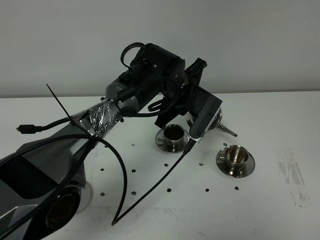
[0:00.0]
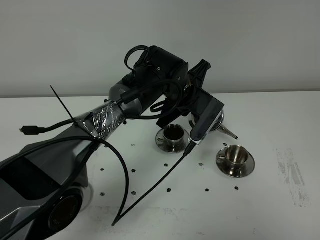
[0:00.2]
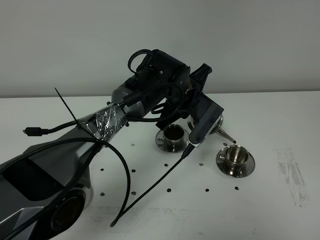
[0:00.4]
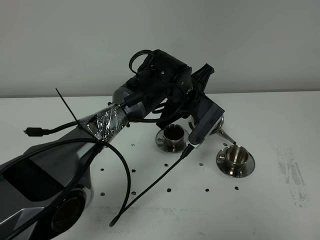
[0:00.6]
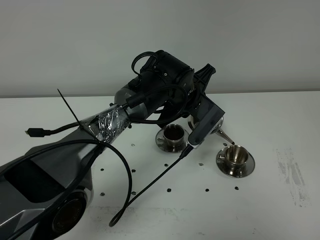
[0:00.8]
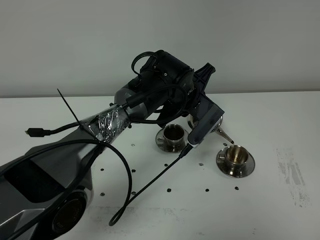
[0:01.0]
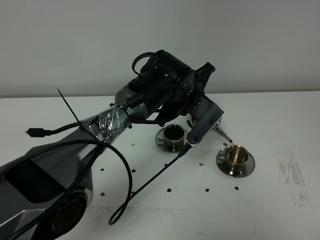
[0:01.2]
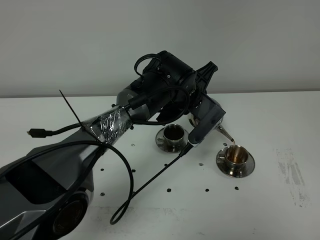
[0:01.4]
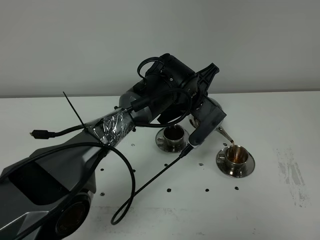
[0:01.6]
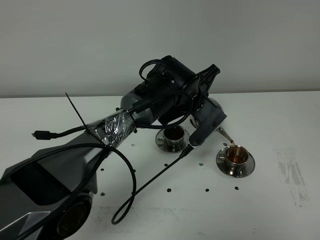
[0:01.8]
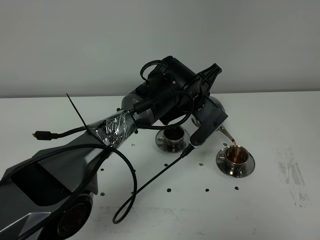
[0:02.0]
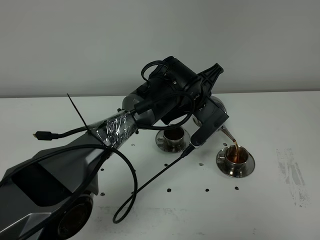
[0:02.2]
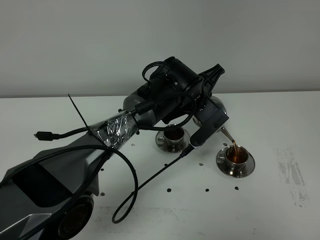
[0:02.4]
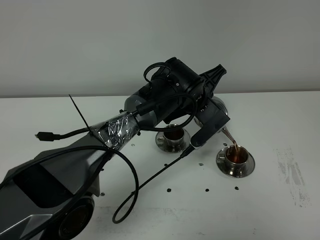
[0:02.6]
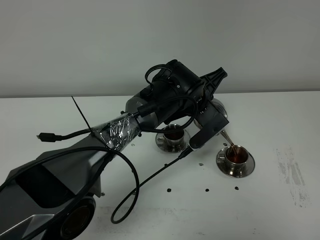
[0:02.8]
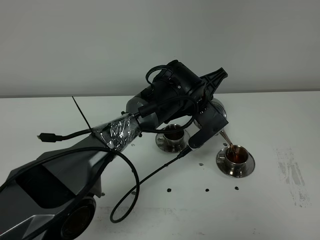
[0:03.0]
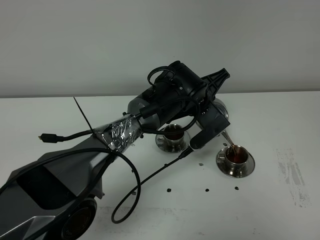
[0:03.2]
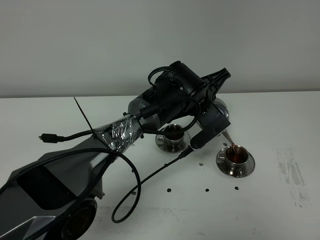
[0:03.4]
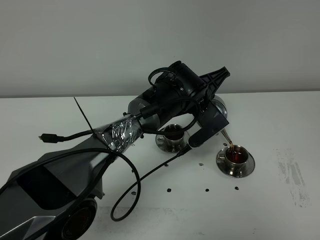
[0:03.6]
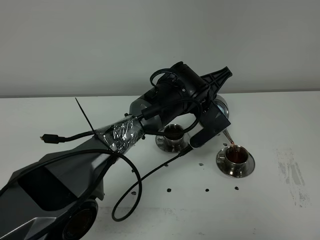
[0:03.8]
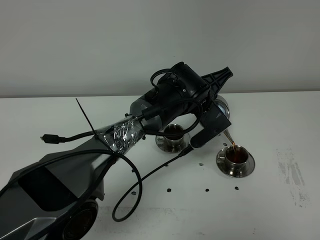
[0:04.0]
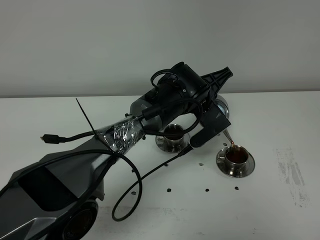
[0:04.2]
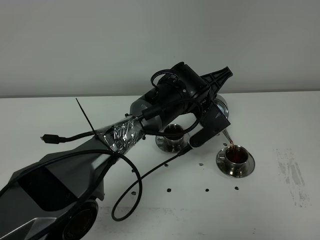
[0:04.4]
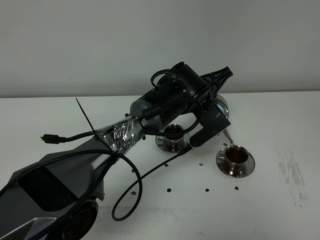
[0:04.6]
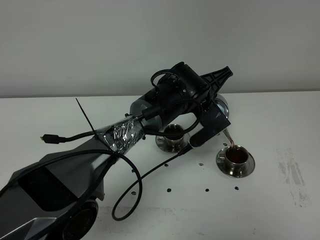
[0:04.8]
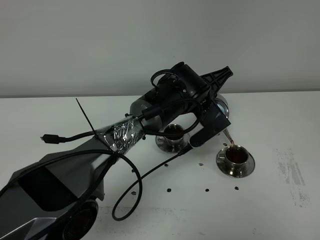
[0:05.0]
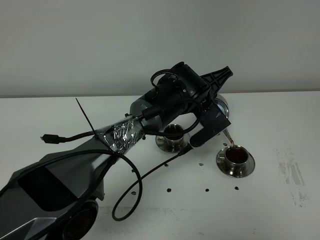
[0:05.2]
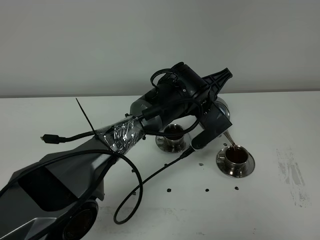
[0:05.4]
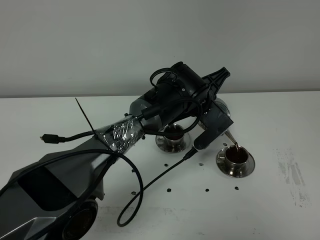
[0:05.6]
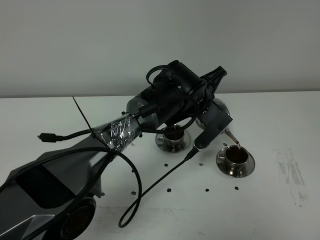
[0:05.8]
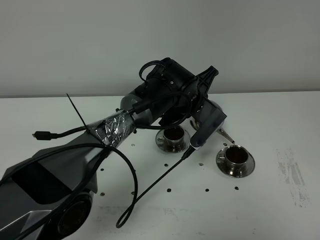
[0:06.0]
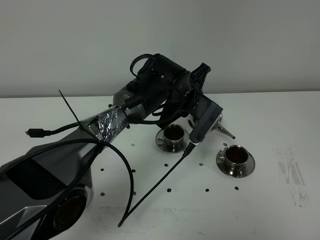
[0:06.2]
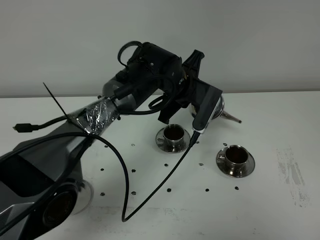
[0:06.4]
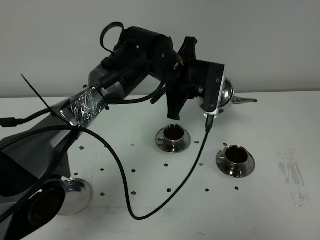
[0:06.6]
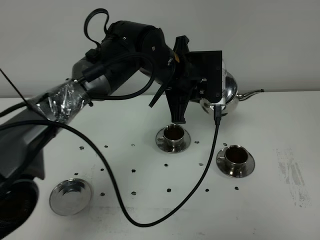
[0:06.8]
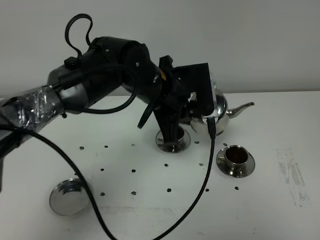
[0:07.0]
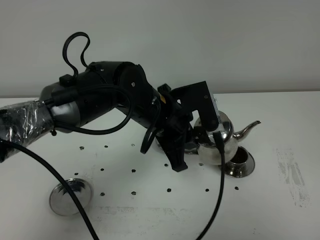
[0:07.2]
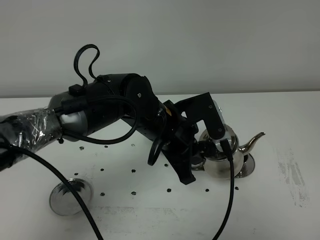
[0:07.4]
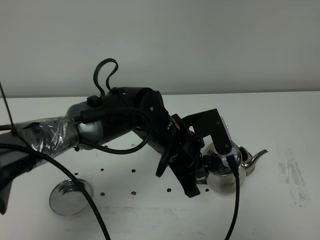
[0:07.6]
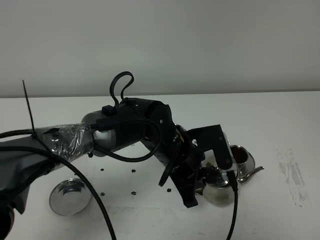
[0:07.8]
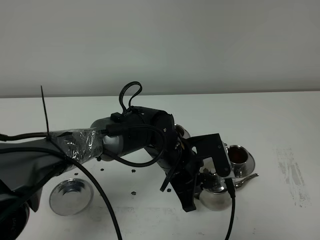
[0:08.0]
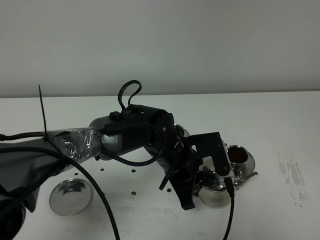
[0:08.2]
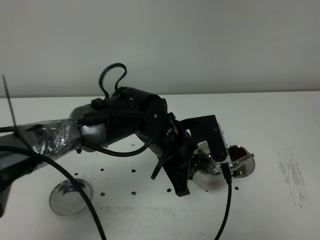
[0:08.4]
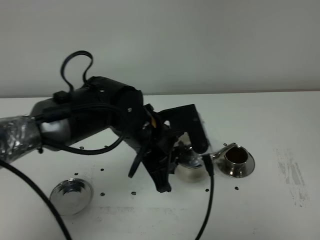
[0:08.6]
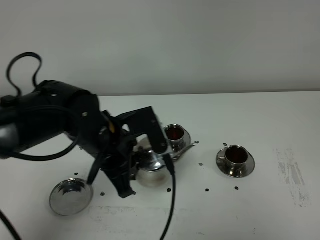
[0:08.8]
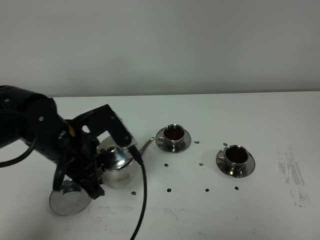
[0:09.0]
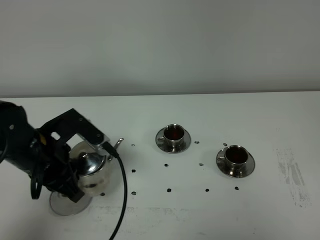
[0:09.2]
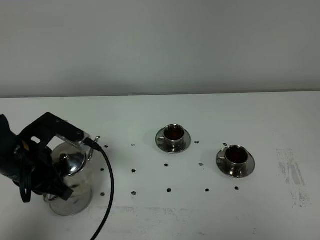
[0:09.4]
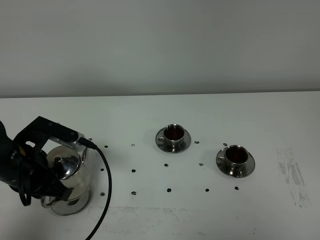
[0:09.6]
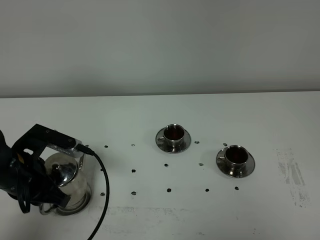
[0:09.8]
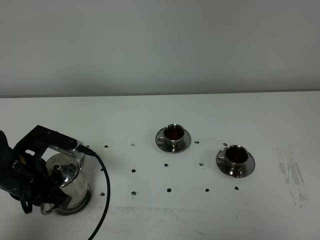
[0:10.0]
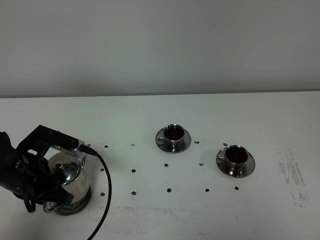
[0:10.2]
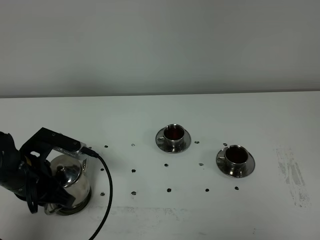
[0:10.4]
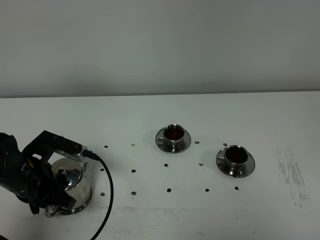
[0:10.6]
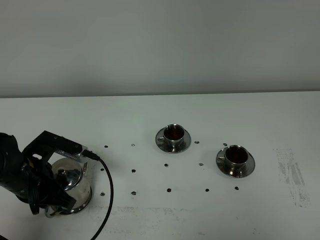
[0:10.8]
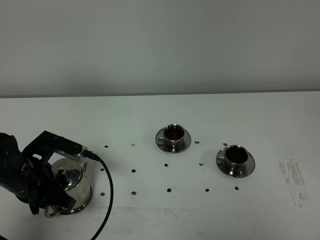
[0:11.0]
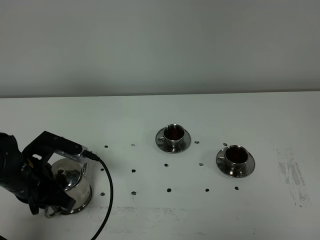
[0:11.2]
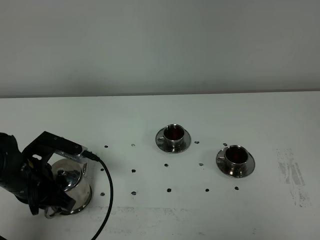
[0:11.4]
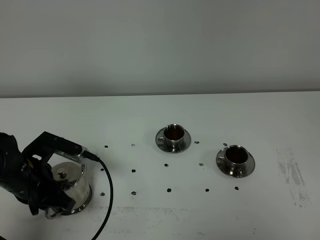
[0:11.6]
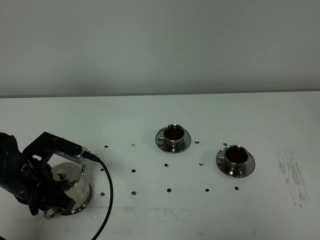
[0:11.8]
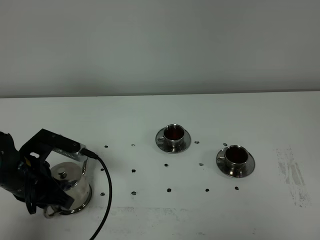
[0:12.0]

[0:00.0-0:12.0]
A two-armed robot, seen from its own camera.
Task of the whole recording: grasp the stainless steel teapot and pour the tea into the two stainless steel teacups one by one, put the stainless steel teapot back in its original place.
Step, 0:00.0 to 0:06.0: Pour tea into the teacup with the left gripper.
0:00.0 to 0:01.6: The grippers make only small movements.
0:01.6 to 0:03.0: There are only small adjustments of the grippers.
0:03.0 to 0:04.4: Both grippers stay about where they are.
0:04.4 to 0:06.0: The grippers stay close to where they were, moving slightly.
0:06.0 to 0:07.6: The left gripper moves backward, about 10 cm.
0:07.6 to 0:09.0: The left gripper travels to the left by roughly 15 cm.
0:09.0 to 0:10.4: The left gripper moves to the left and downward, approximately 10 cm.
0:10.4 to 0:12.0: Neither gripper changes place.

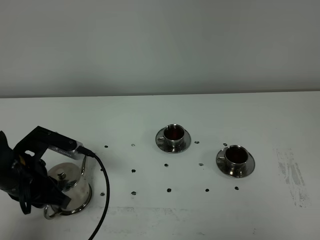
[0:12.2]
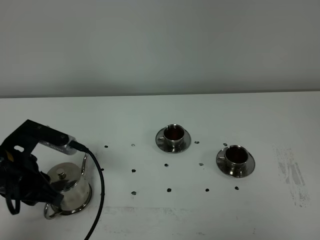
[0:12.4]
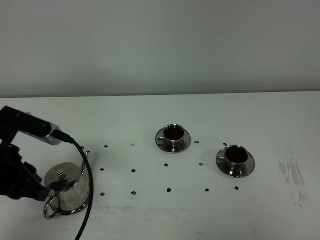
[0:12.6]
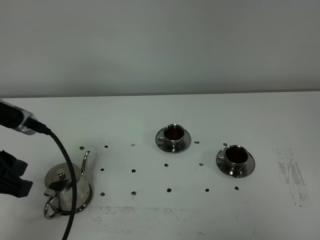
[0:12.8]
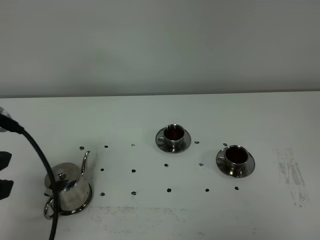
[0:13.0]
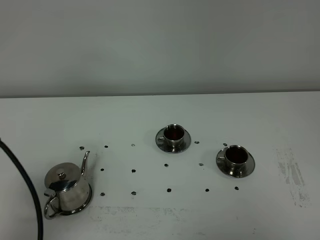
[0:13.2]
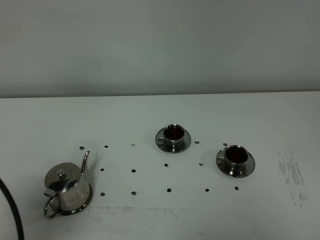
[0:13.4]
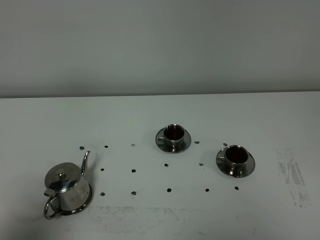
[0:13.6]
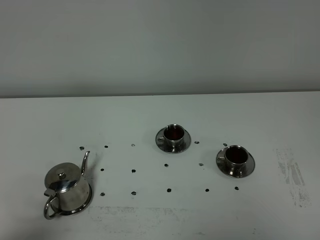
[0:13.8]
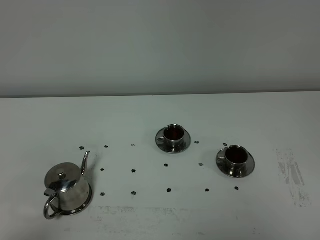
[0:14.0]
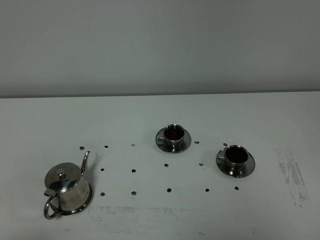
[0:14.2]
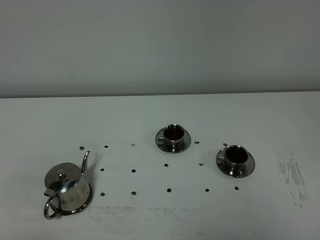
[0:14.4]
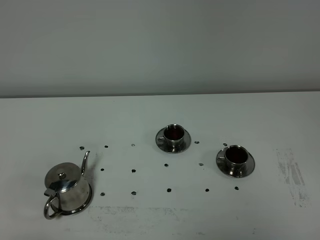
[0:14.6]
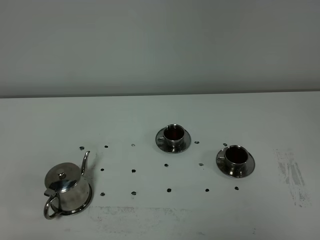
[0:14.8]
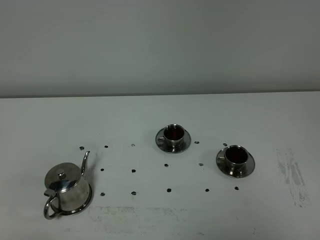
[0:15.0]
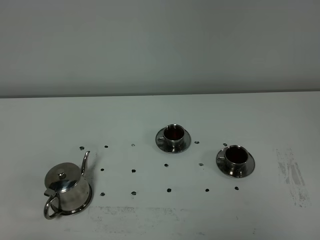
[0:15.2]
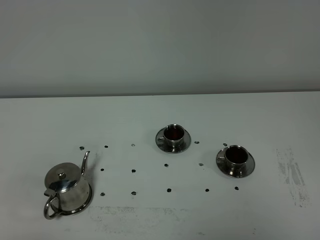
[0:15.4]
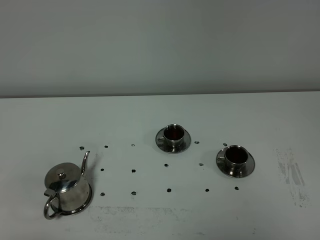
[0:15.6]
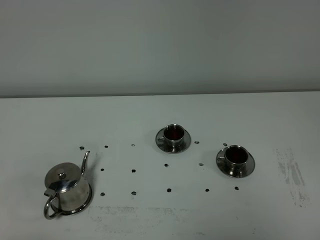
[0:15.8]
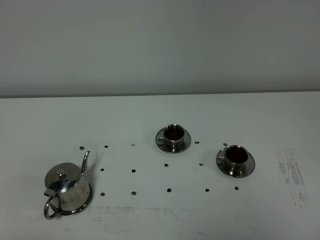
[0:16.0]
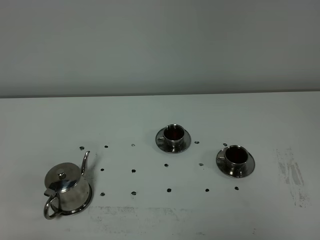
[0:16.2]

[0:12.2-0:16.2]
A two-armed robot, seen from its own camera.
Task of the whole recording: grasp the stainless steel teapot and pour the tea into the two stainless steel teacups one by one, put the stainless steel teapot back in its original place.
0:12.2 to 0:13.6: The left gripper shifts approximately 25 cm backward and upward.
0:13.6 to 0:14.8: The left gripper goes roughly 10 cm backward and downward.
0:14.8 to 0:16.2: Both grippers stay about where they are.
